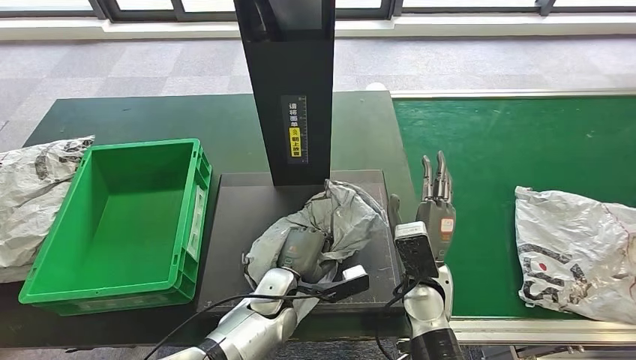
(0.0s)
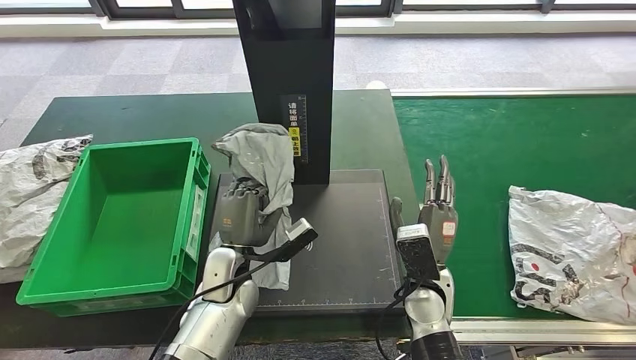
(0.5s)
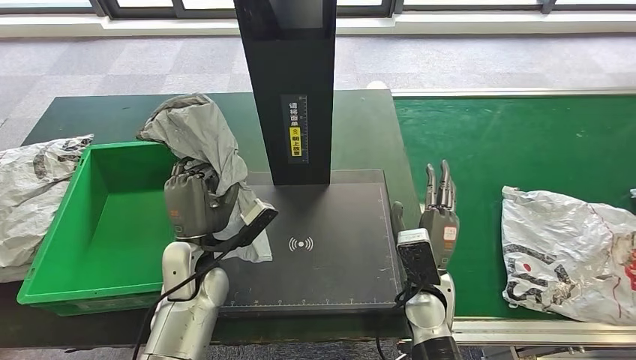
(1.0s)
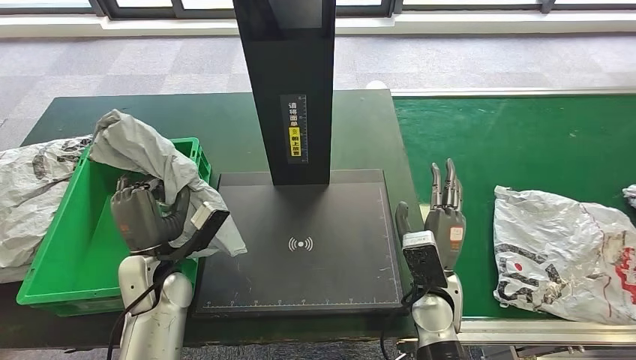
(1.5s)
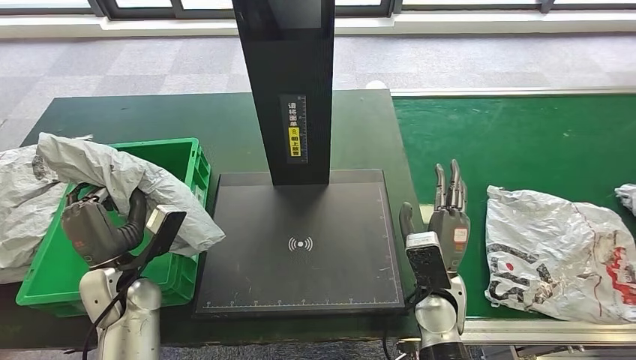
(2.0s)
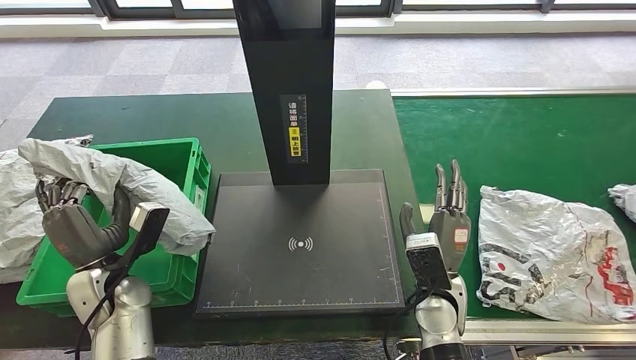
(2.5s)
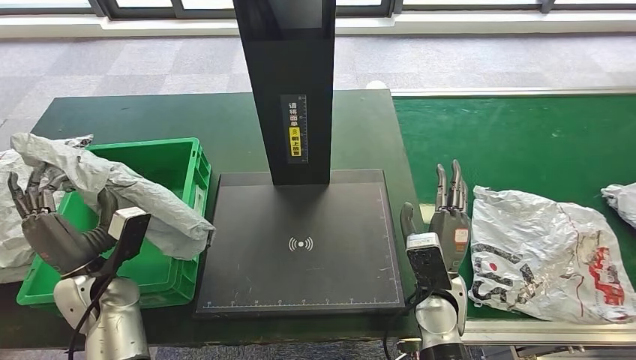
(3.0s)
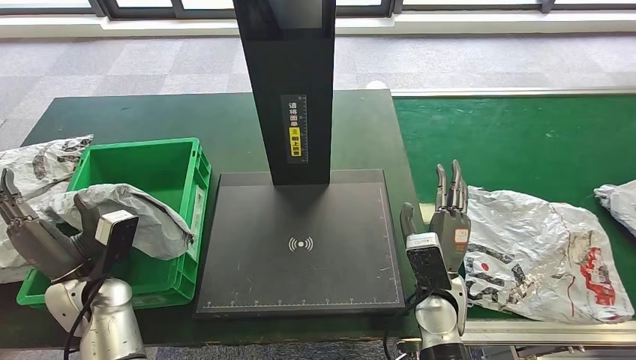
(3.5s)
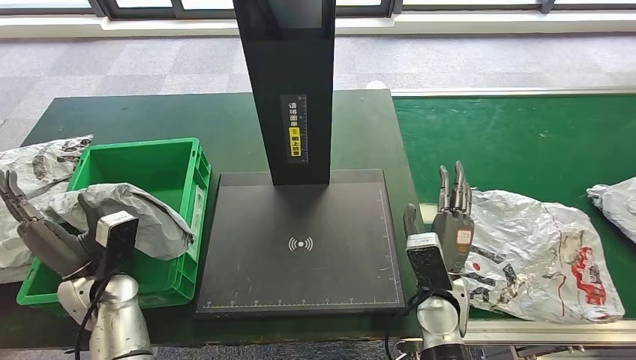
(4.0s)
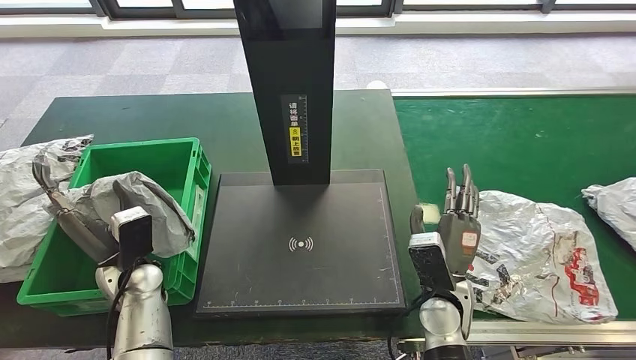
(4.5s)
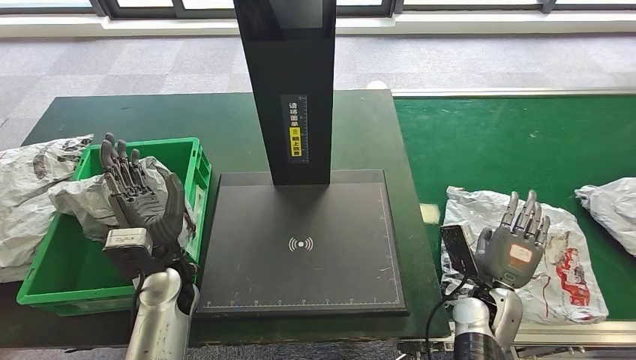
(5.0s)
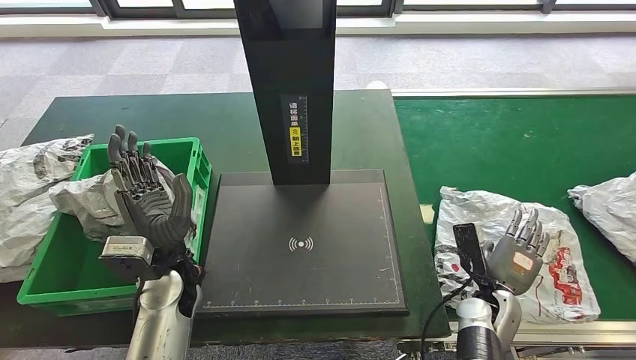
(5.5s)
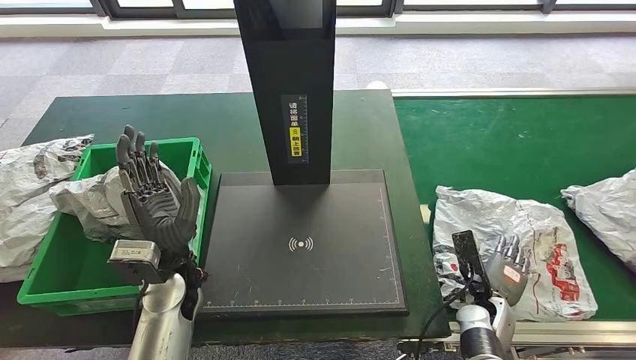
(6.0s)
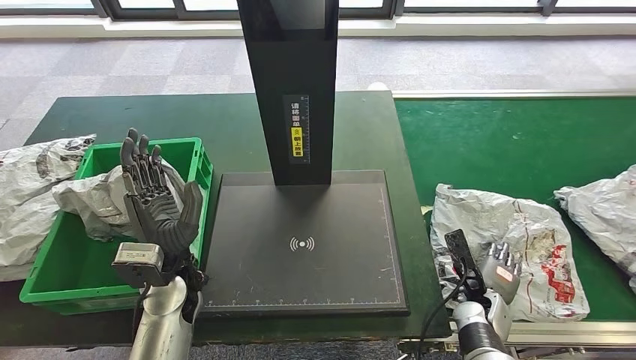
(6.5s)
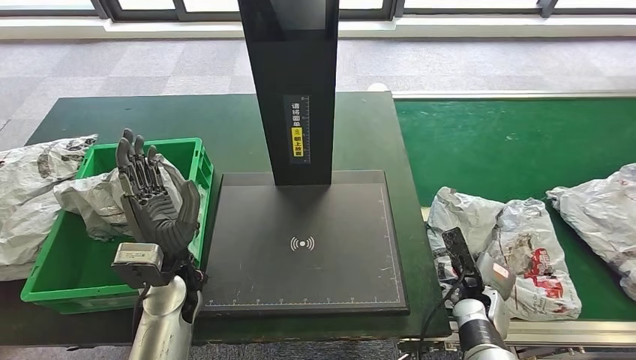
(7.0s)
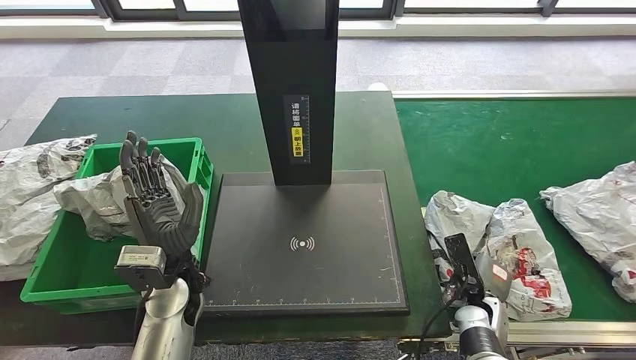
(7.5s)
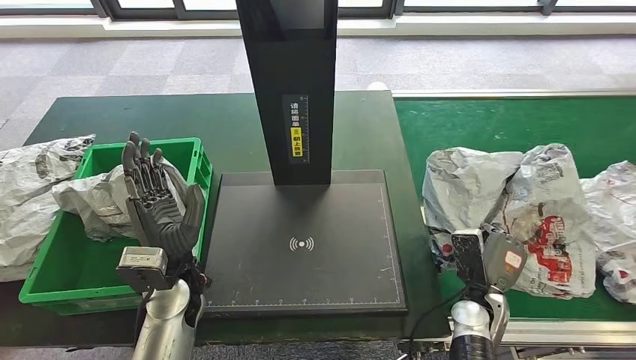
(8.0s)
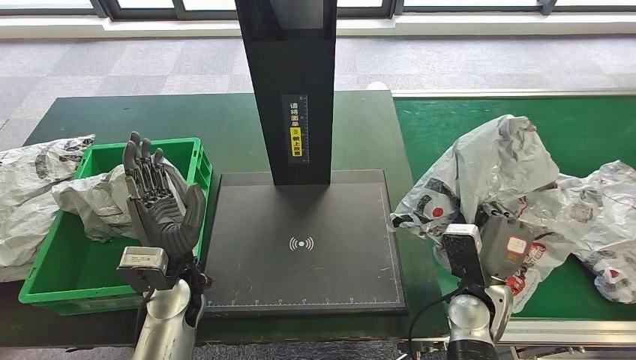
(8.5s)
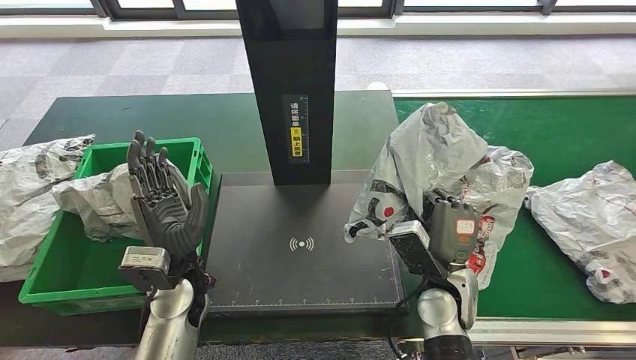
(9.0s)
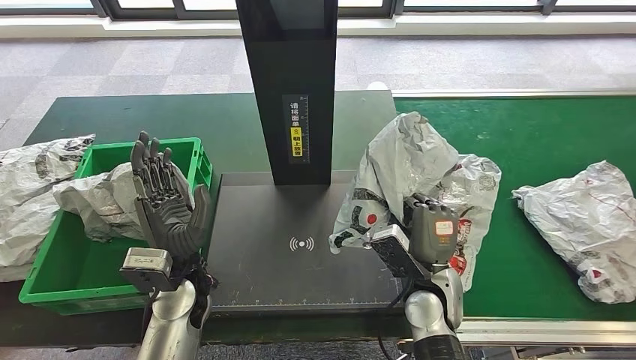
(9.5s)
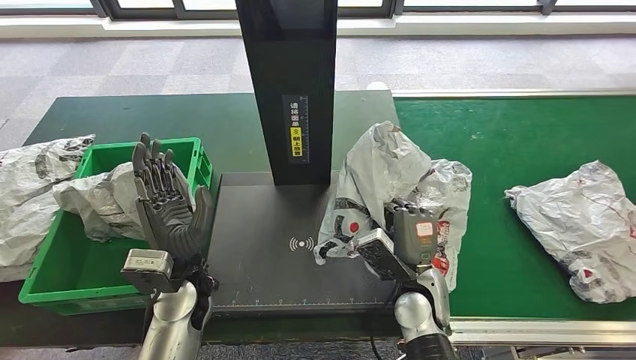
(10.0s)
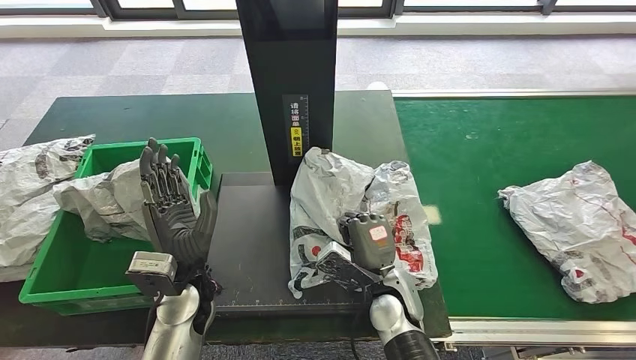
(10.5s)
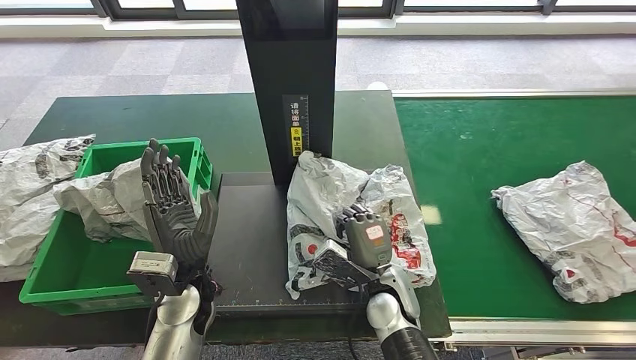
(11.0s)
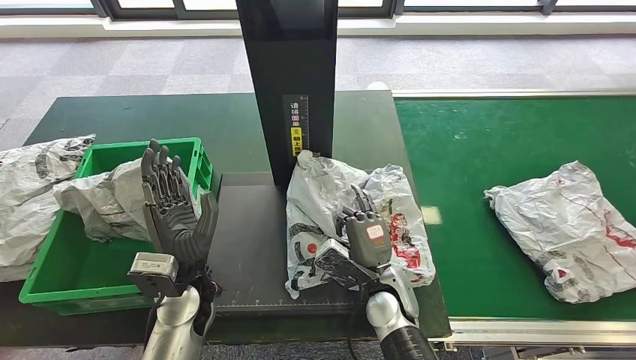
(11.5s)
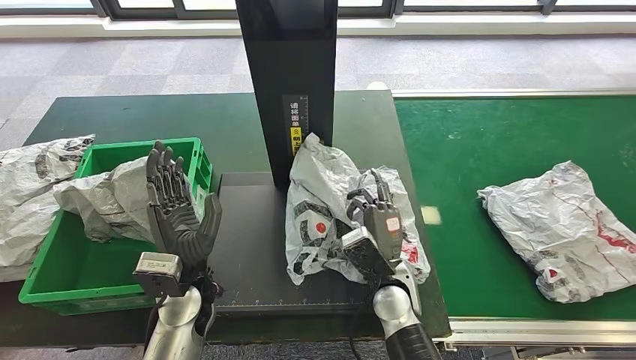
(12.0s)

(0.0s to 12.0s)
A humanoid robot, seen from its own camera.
2.0s - 4.0s: The hands move only a little.

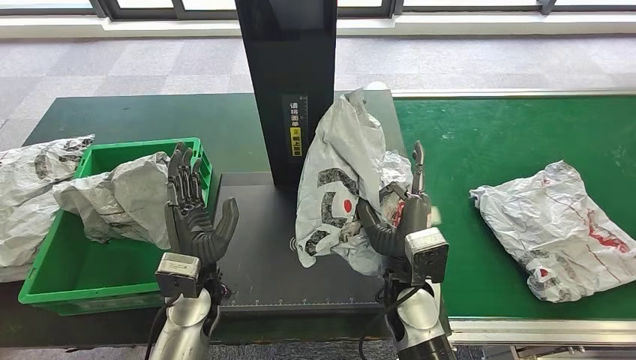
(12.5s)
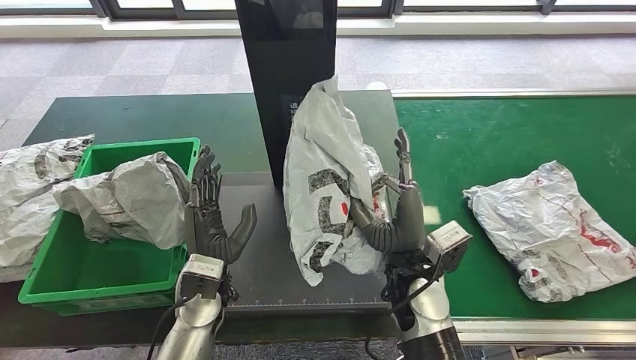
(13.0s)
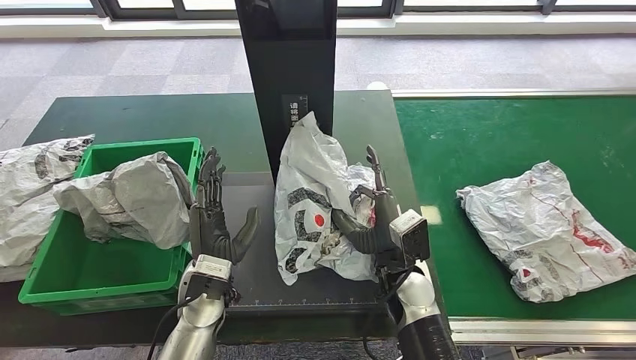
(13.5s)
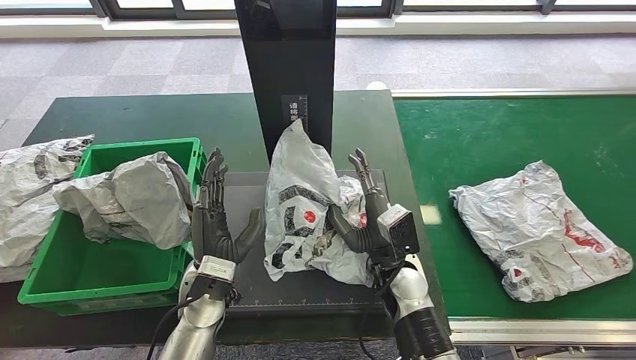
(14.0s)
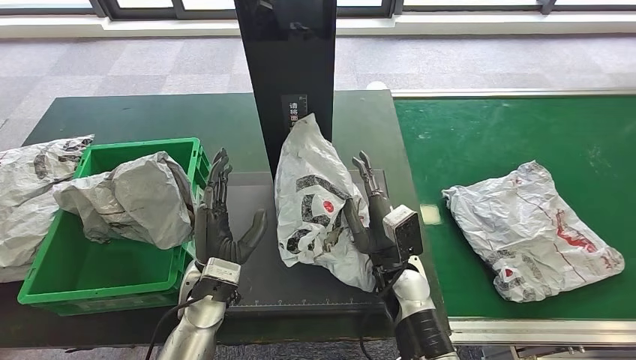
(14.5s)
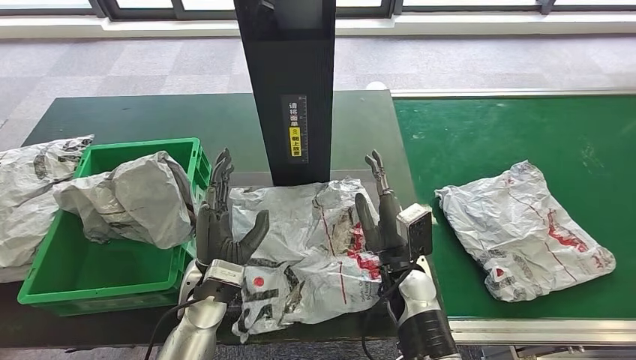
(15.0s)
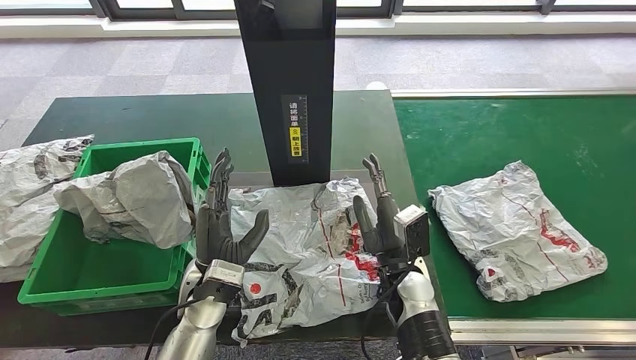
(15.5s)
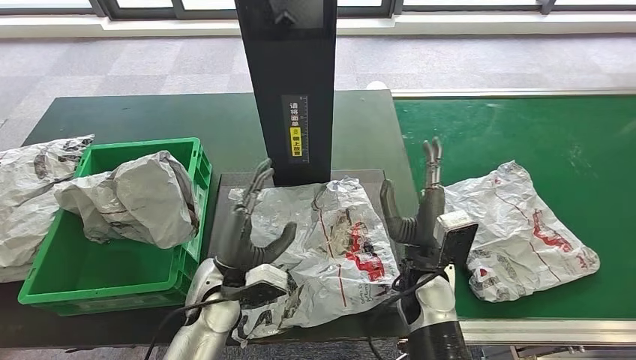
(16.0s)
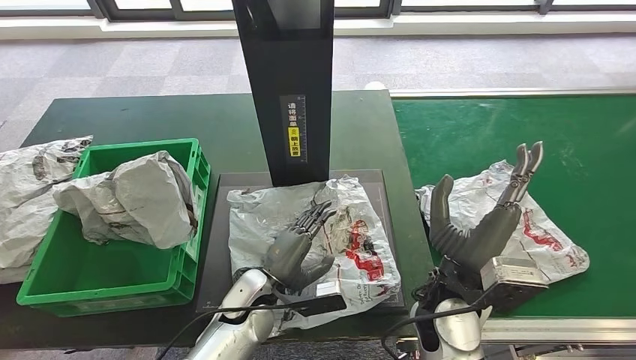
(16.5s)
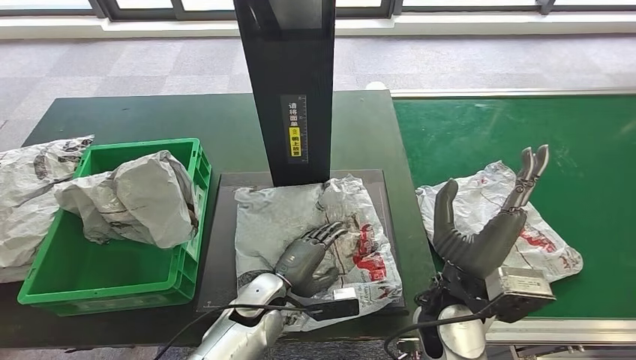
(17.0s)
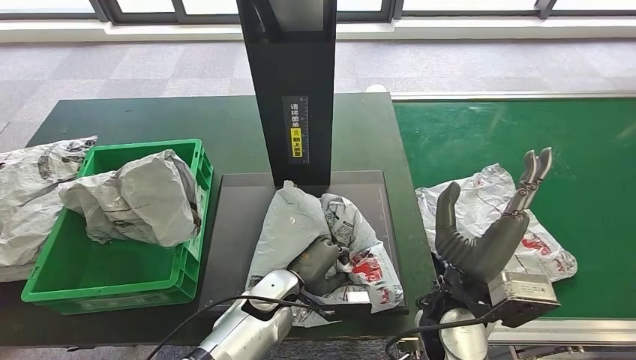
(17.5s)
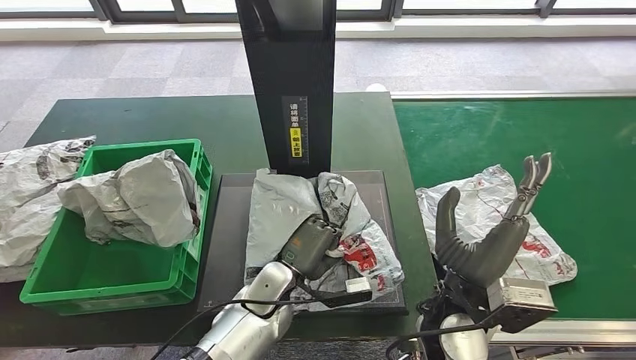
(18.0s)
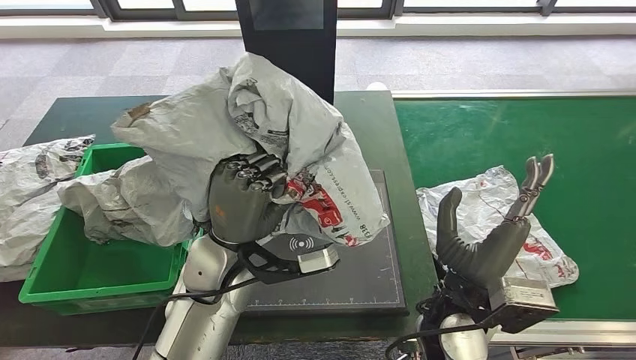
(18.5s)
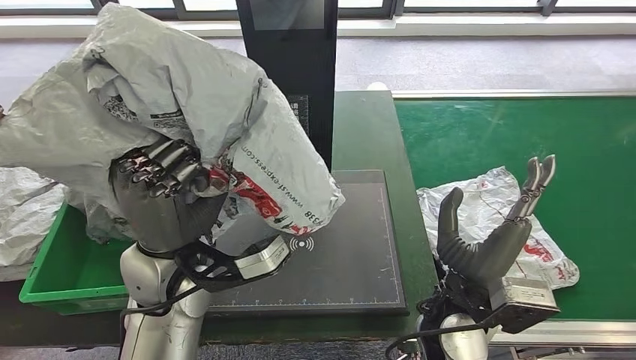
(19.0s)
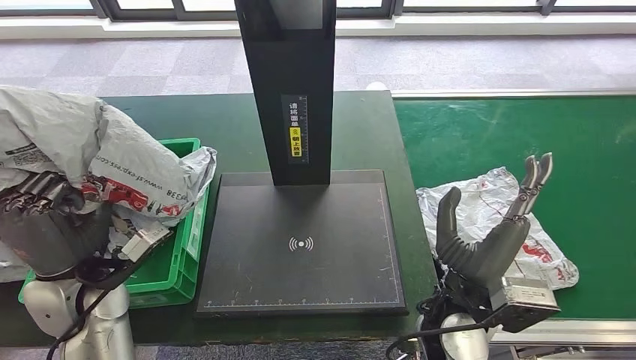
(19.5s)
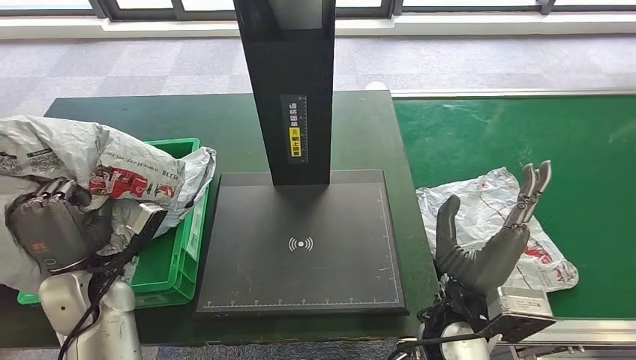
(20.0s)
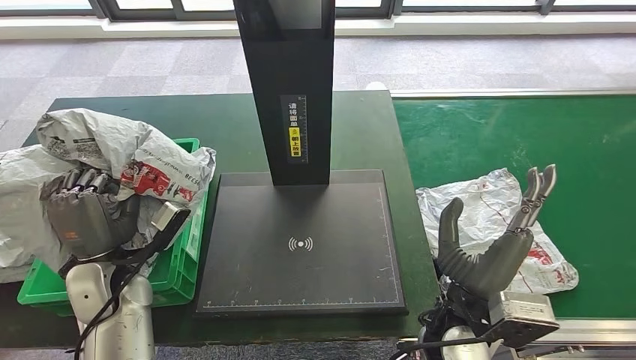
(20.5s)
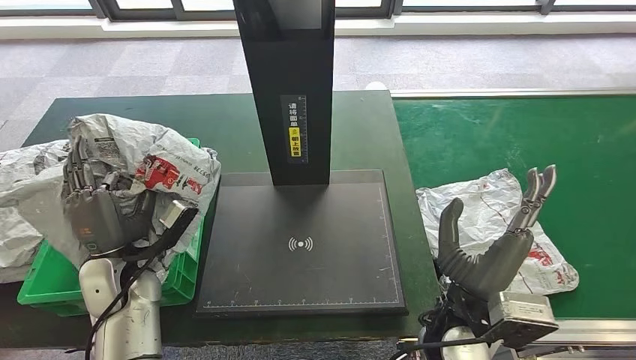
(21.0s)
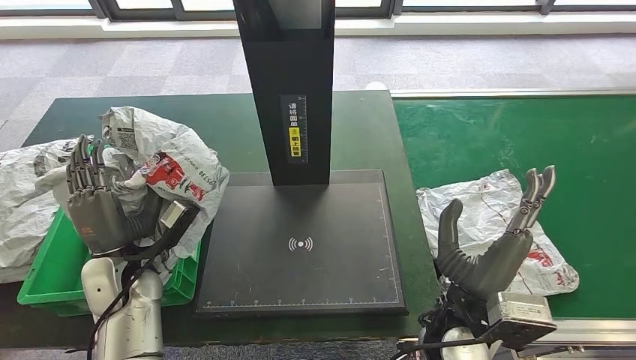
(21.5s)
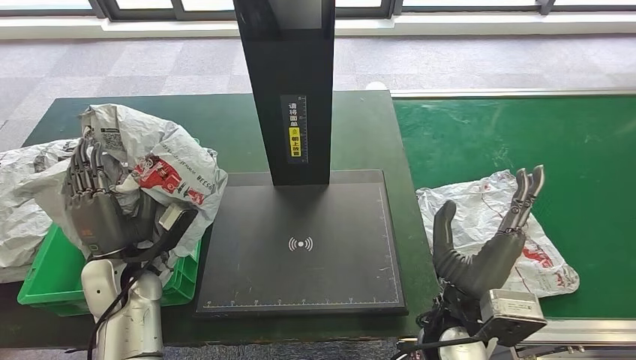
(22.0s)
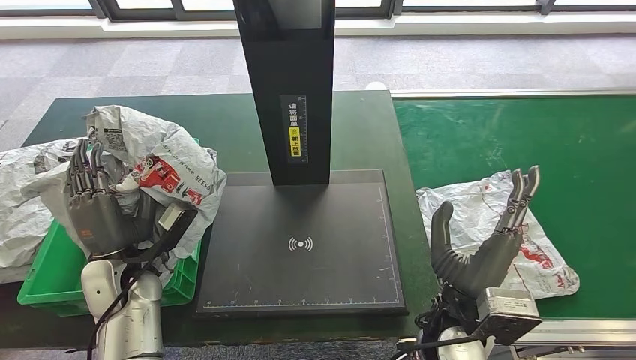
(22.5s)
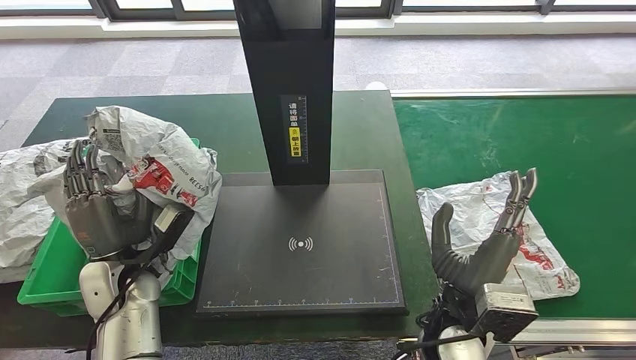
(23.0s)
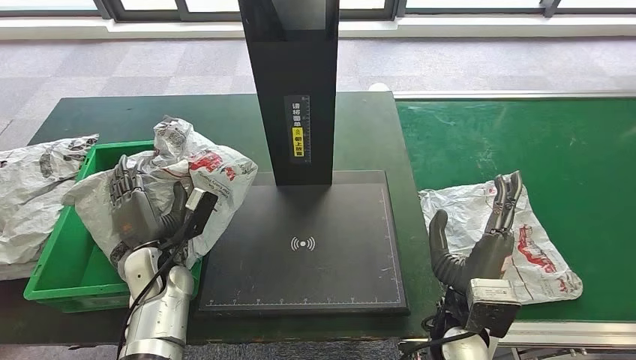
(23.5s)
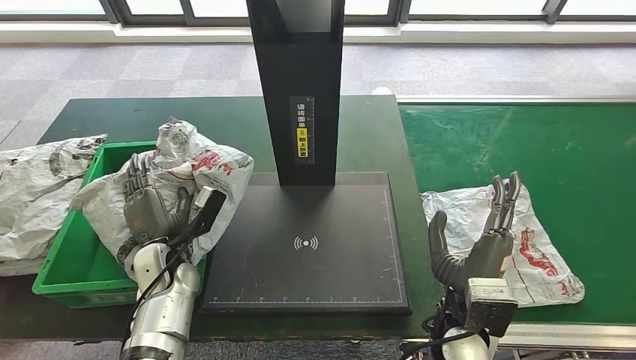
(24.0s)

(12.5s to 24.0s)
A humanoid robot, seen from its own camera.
20.0s - 22.0s: The hands stay close to where they were, moving slightly.
